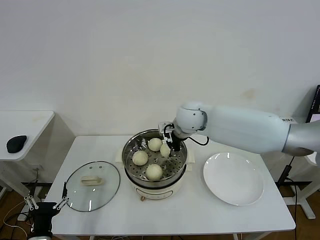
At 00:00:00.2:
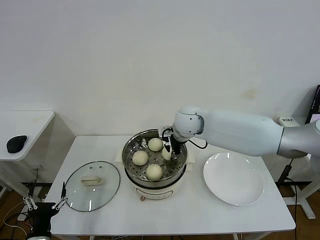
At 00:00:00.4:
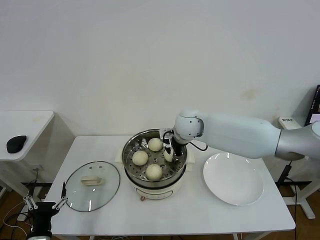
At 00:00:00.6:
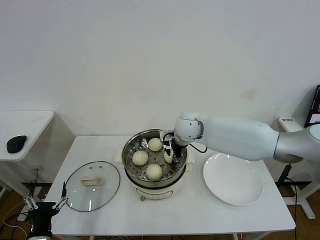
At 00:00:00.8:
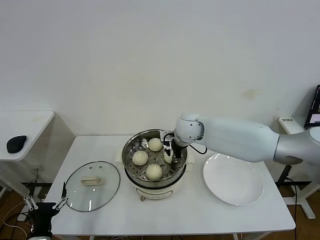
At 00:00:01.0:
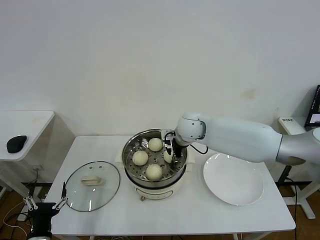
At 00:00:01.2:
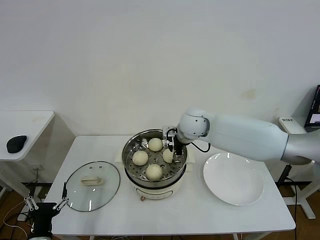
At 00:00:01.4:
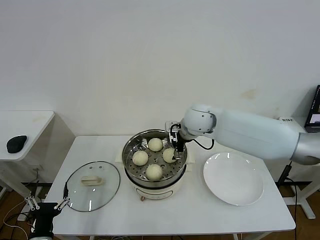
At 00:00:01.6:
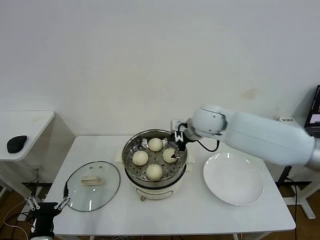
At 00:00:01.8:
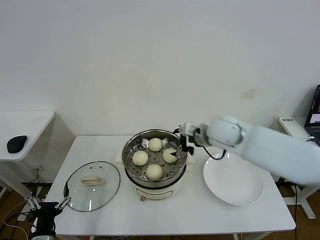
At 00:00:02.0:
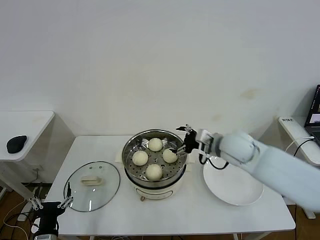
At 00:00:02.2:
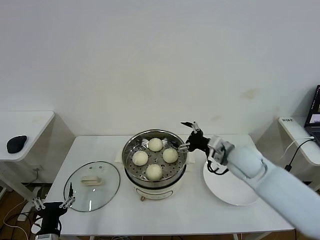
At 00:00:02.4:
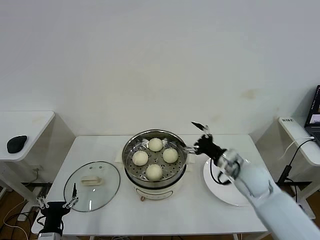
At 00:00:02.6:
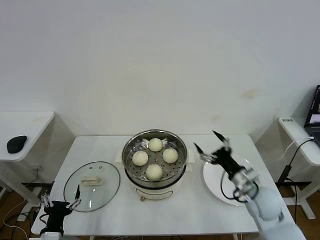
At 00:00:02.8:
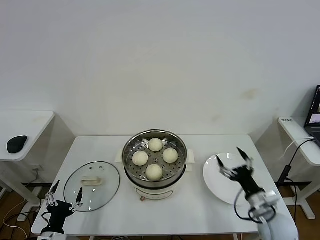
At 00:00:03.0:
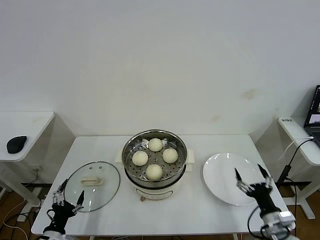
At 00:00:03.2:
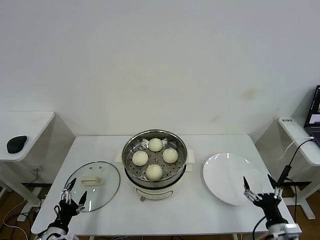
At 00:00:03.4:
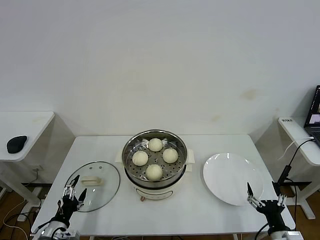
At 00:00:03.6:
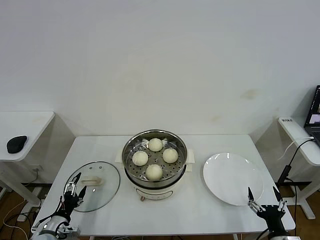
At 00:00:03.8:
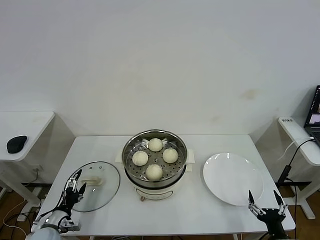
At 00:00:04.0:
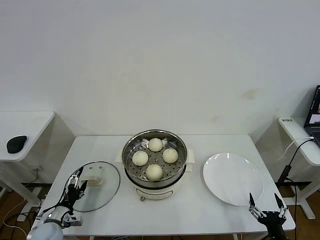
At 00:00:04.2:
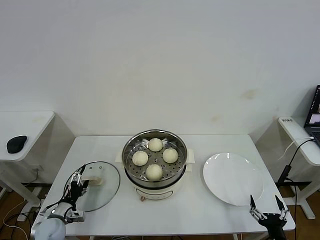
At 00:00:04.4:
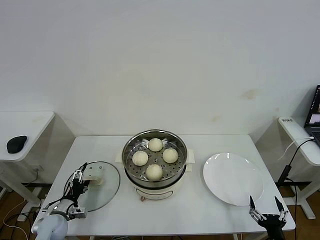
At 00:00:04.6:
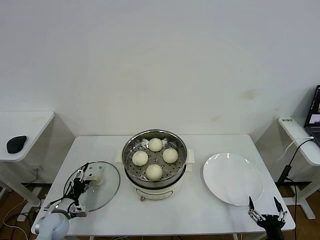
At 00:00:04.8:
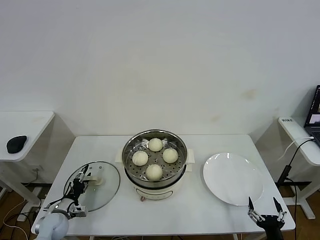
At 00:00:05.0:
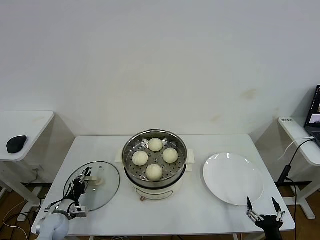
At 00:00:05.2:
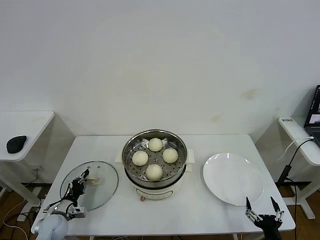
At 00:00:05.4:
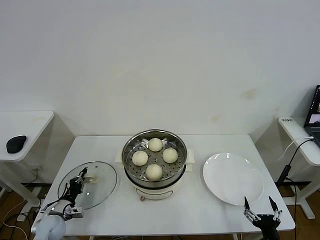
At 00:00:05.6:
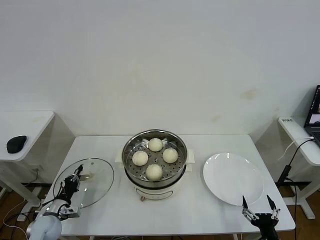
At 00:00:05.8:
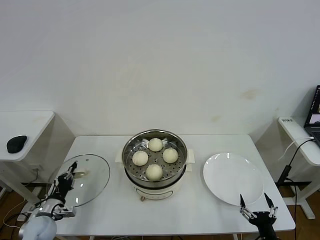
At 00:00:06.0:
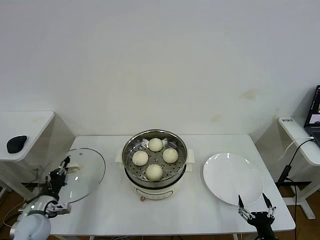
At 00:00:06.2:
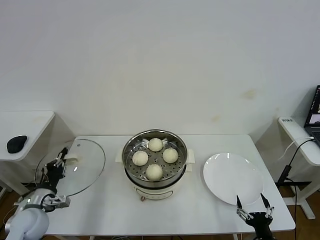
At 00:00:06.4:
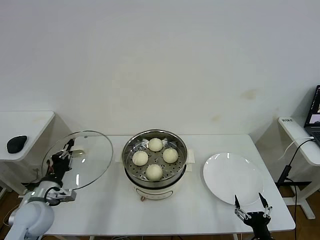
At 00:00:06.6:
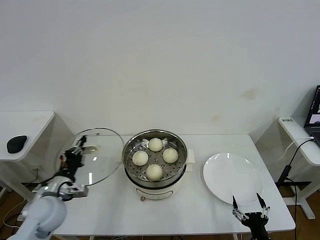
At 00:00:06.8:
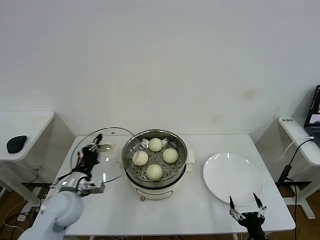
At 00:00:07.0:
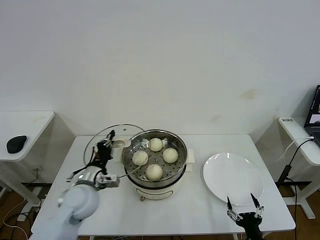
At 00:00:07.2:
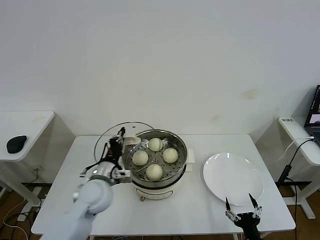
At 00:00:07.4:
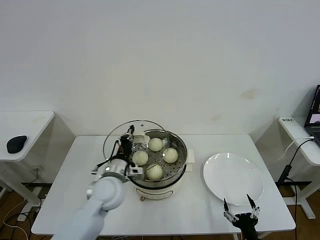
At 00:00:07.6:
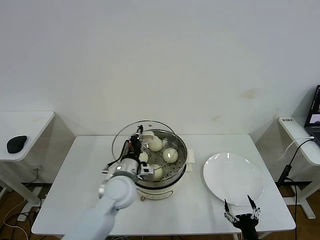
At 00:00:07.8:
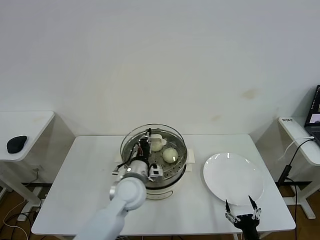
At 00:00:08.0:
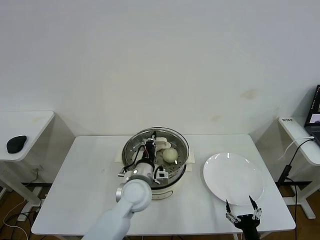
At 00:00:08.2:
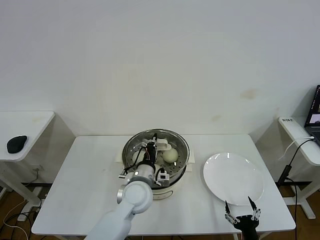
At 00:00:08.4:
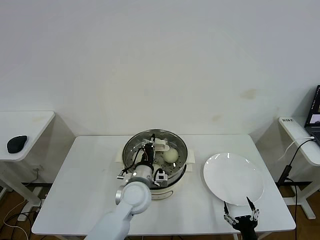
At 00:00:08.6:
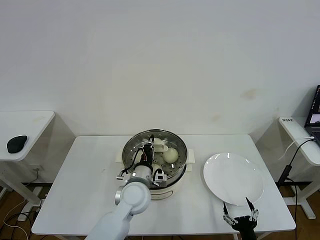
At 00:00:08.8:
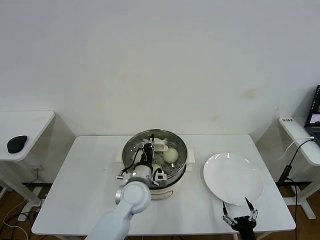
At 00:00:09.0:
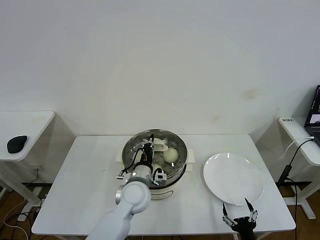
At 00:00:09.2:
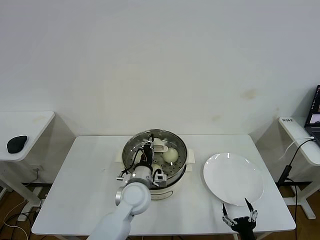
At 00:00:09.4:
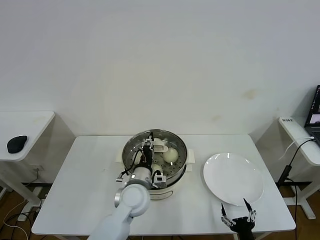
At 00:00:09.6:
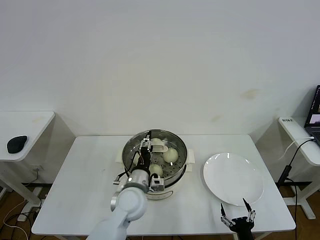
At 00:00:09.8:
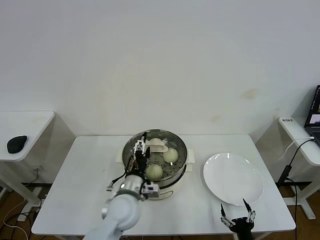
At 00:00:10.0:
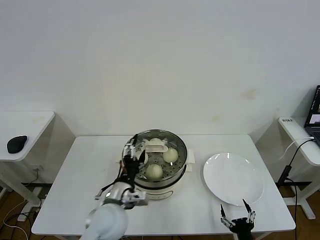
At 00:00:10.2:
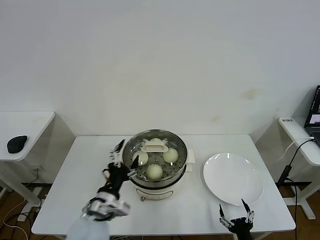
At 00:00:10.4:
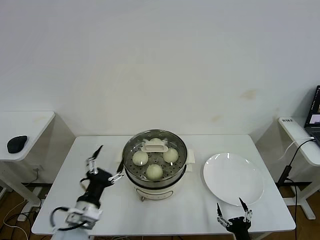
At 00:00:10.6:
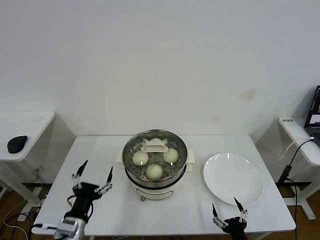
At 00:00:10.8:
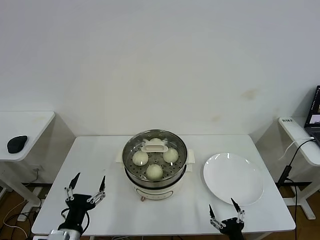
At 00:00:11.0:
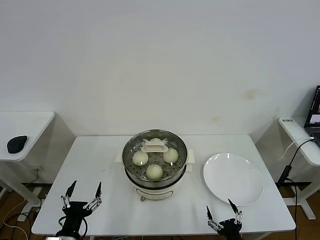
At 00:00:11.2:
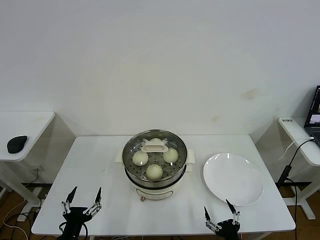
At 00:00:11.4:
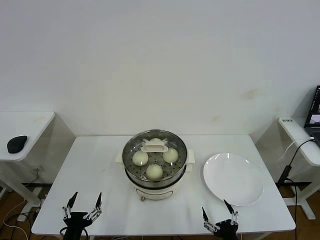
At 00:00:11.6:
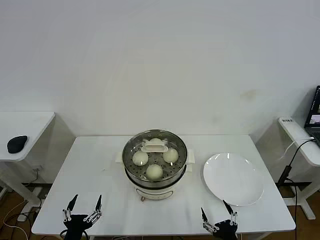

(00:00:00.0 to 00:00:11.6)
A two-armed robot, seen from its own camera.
Step, 00:00:01.4 - 00:00:05.4: Grasp the pot lid with left gripper.
Step, 00:00:05.6 - 00:00:09.4: Place the pot lid on the steamer with left gripper.
00:00:00.0 - 00:00:01.4: The right gripper opens.
00:00:01.4 - 00:00:02.8: The right gripper moves backward, to the right and downward, roughly 40 cm.
00:00:02.8 - 00:00:04.4: The left gripper travels forward and downward by some 15 cm. Meanwhile the right gripper travels backward and downward by approximately 15 cm.
00:00:04.4 - 00:00:05.8: The left gripper closes its fingers.
00:00:05.8 - 00:00:07.2: The left gripper heads to the right and upward, covering some 25 cm.
00:00:07.2 - 00:00:08.8: The left gripper heads to the right, covering approximately 10 cm.
00:00:08.8 - 00:00:10.2: The left gripper goes about 15 cm backward and to the left, and opens.
00:00:10.2 - 00:00:11.6: The left gripper is displaced backward, to the left and downward by approximately 20 cm, while the right gripper moves some 5 cm.
